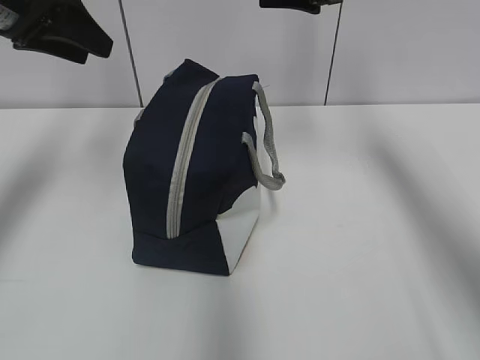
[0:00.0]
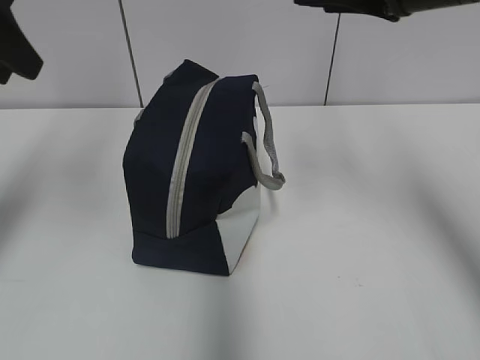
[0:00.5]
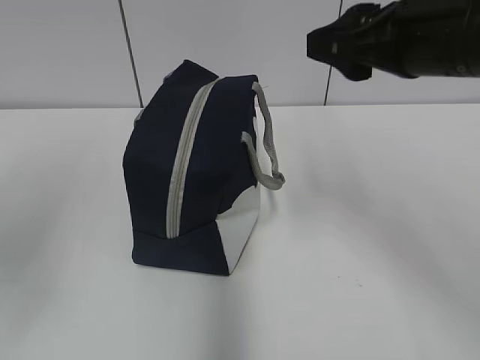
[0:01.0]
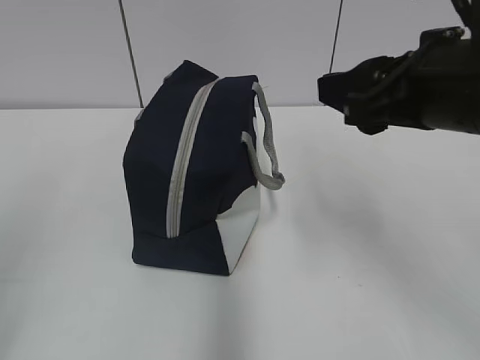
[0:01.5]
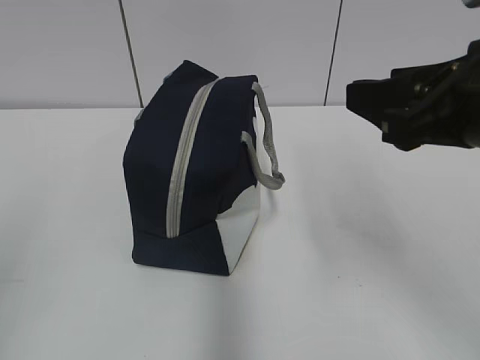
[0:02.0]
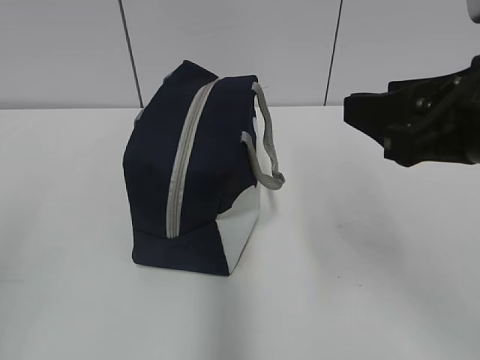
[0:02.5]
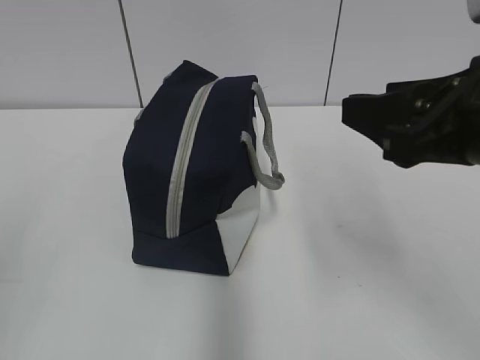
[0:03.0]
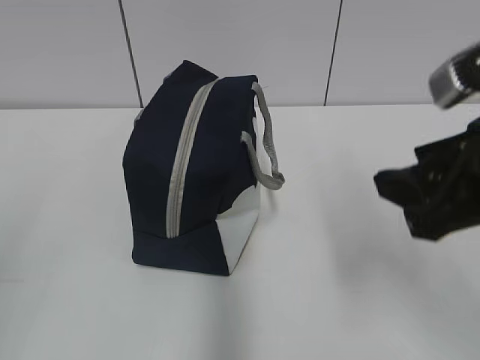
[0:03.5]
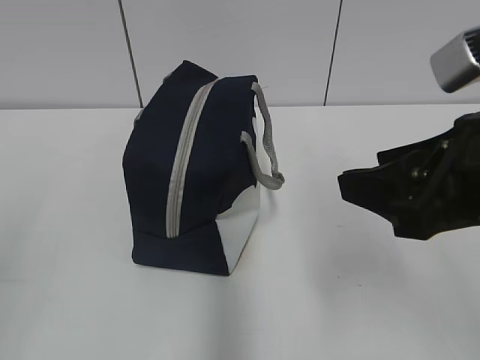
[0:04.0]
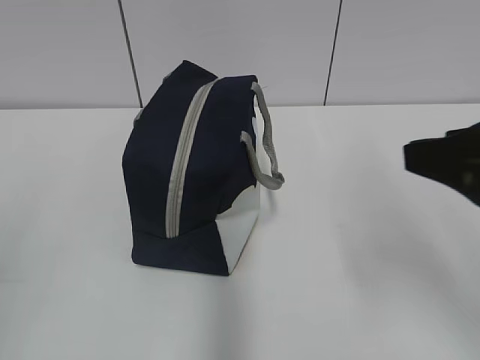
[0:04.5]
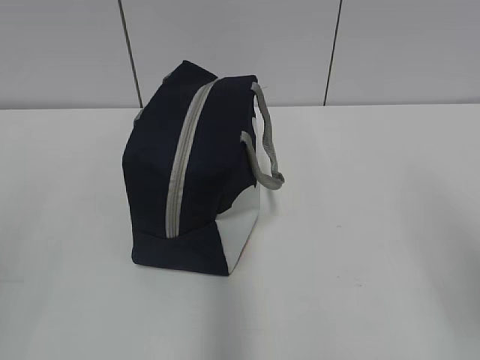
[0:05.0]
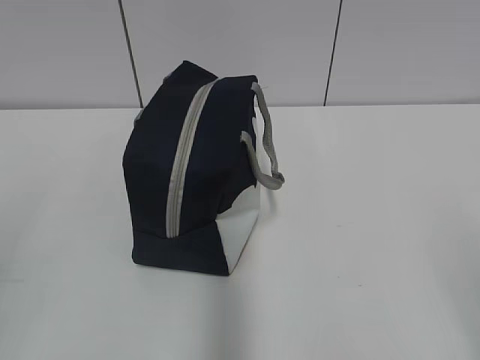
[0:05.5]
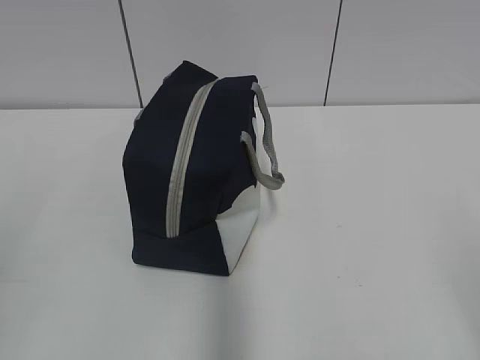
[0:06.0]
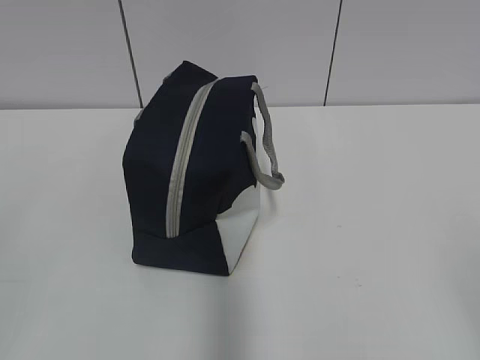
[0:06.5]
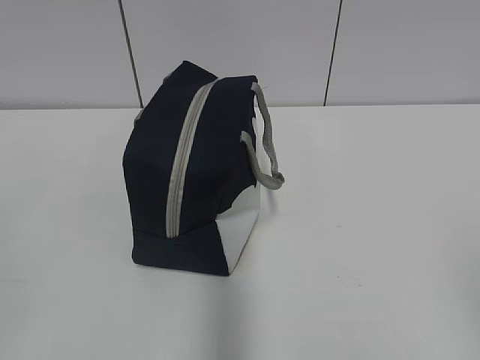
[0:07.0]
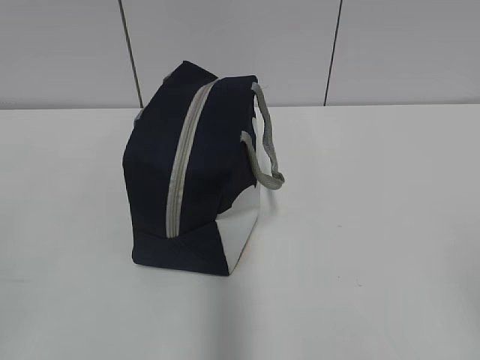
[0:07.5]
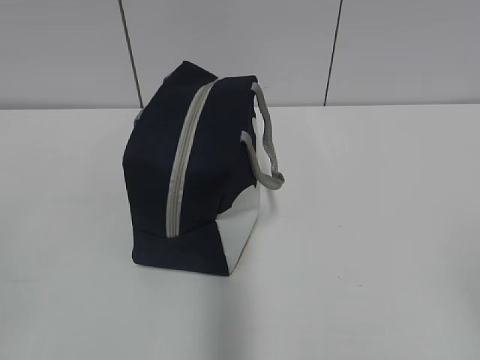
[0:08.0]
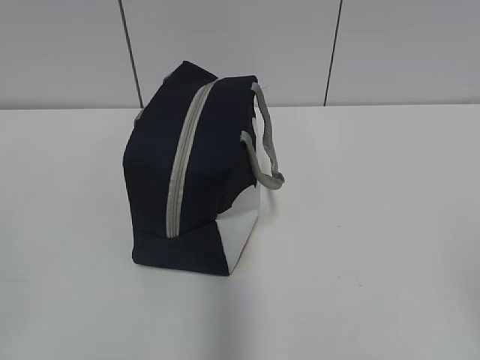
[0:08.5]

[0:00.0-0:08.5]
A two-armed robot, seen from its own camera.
0:00.0 to 0:02.0: The two grippers go roughly 25 cm backward.
0:04.0 to 0:06.5: The right gripper is displaced backward and to the right by some 20 cm.
